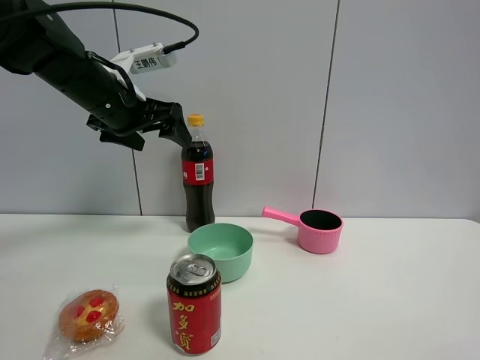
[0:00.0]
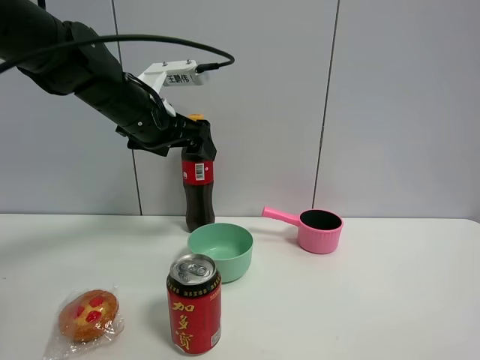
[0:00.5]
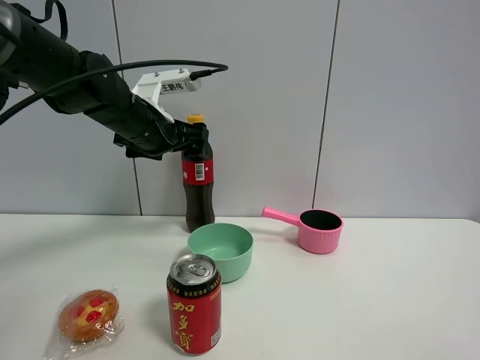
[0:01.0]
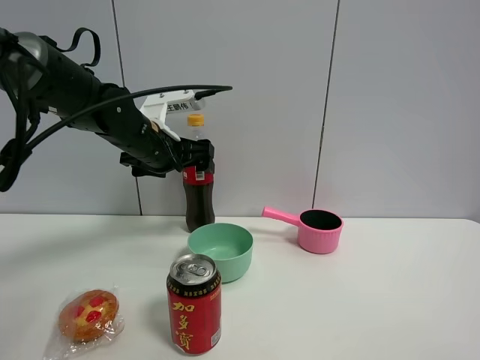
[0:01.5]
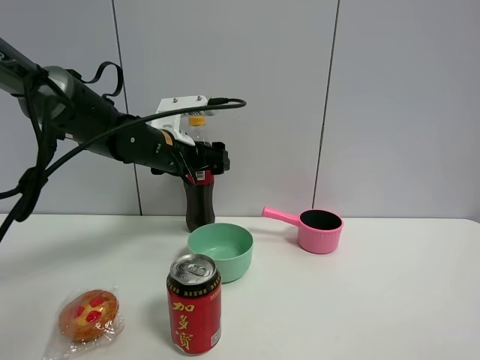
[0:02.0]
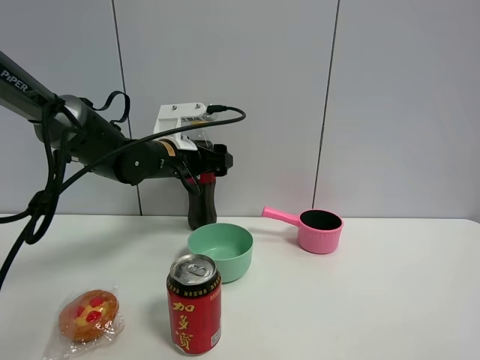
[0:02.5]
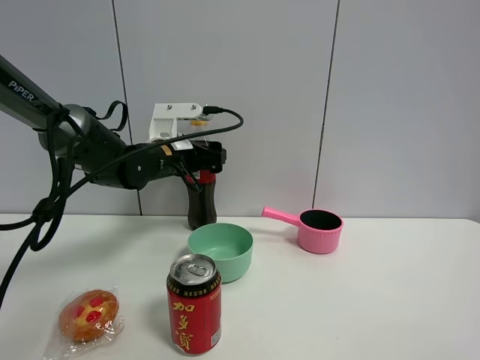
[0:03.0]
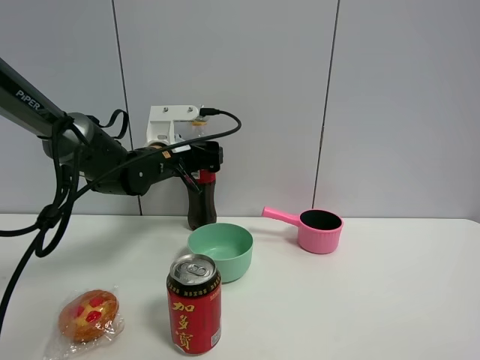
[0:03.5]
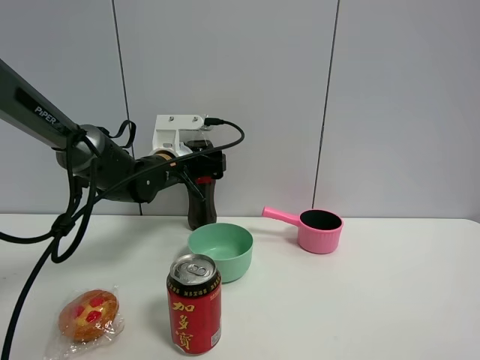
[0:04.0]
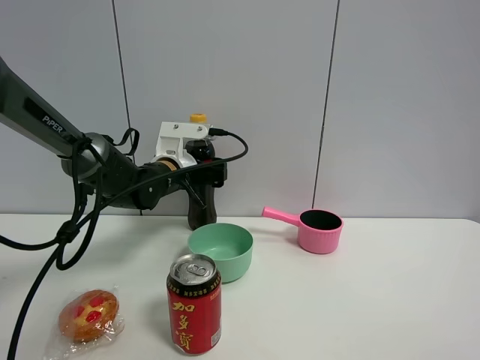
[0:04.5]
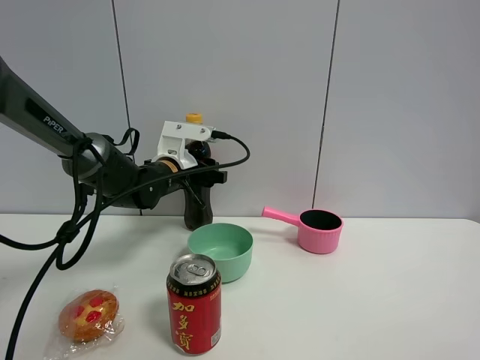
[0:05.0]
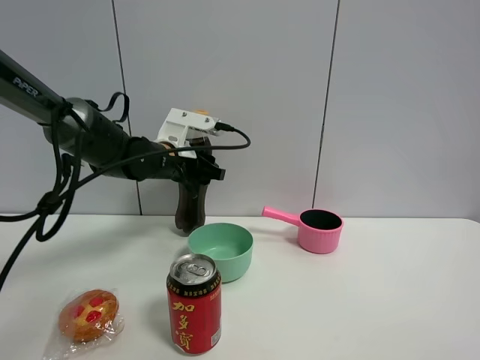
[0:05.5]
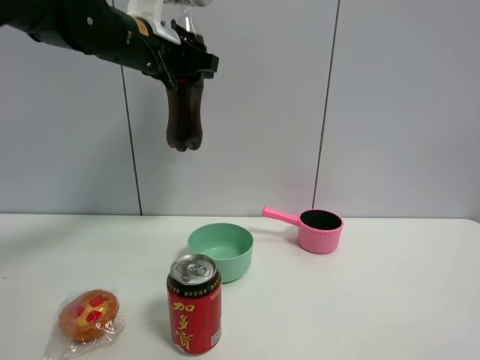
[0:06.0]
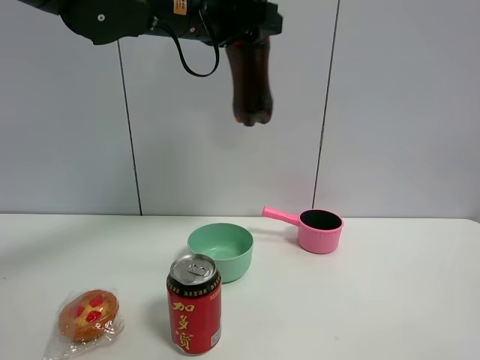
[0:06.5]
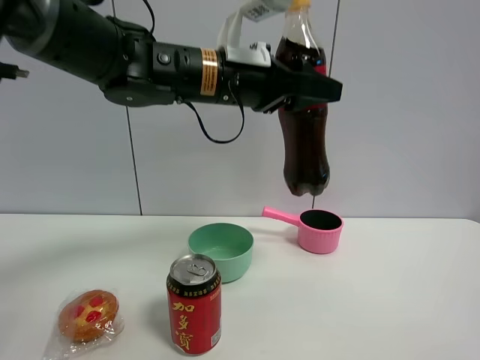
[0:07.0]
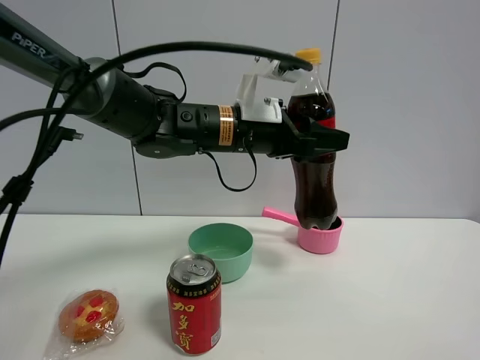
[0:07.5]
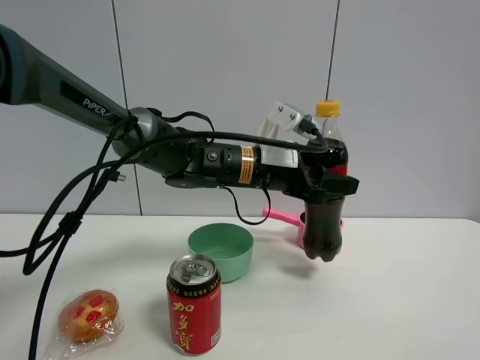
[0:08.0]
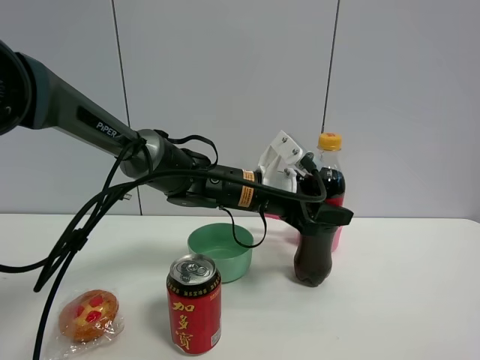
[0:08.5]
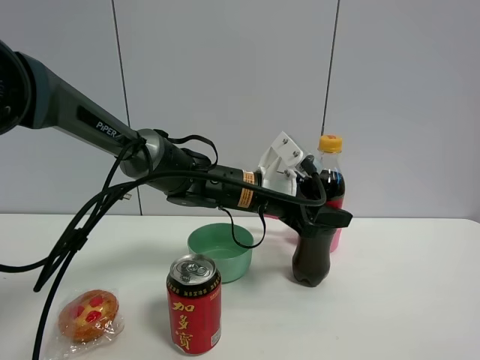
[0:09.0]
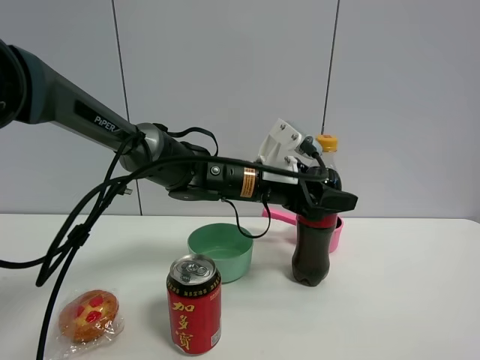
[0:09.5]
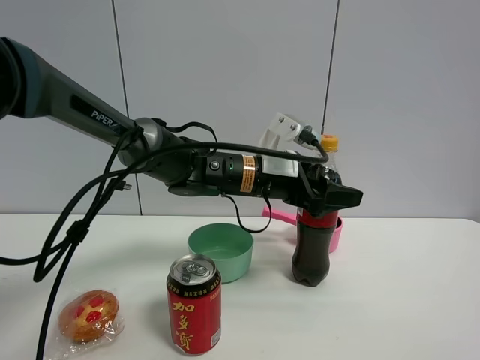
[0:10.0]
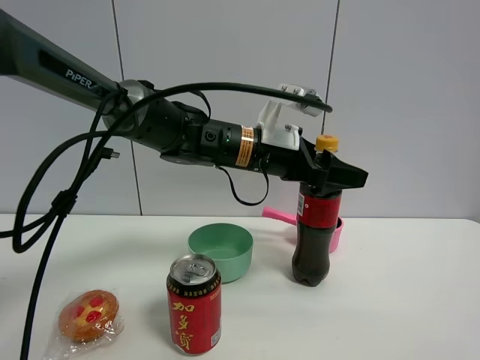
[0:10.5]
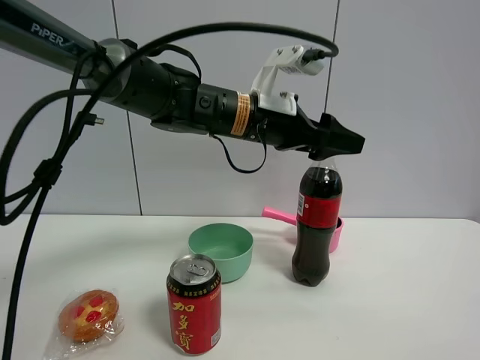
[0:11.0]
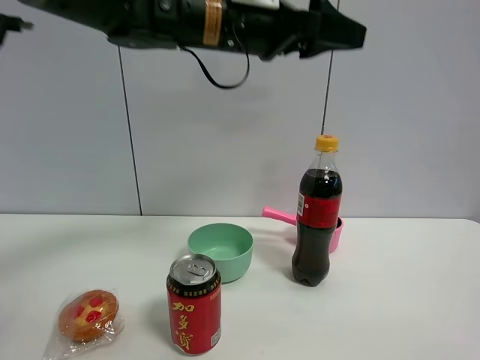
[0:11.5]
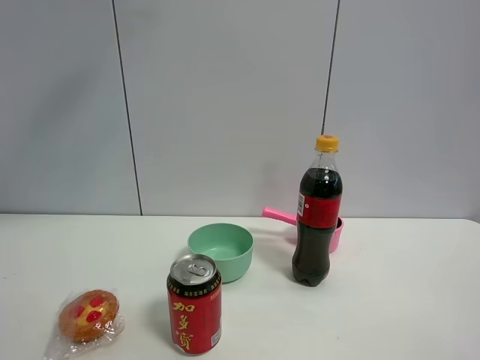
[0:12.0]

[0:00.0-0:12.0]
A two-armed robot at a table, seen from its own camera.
Task of the whole recording: the gripper move the object.
Step, 0:00.0 to 0:05.0: Grasp the coke with the left gripper.
Step, 0:05.5 to 0:10.0: Place the coke on the table with the left gripper.
0:00.0 to 0:02.0: The left gripper is displaced downward and to the right by about 10 cm.
0:02.0 to 0:04.0: The left gripper shifts by about 5 cm.
0:04.0 to 0:06.0: The left gripper travels upward by about 20 cm, and closes up.
0:06.0 to 0:08.0: The left gripper goes some 20 cm downward and to the right.
0:08.0 to 0:10.0: The left gripper opens its fingers.
0:10.0 to 0:12.0: The left gripper goes about 40 cm upward and to the left.

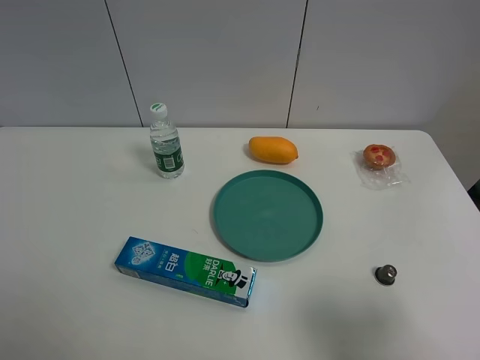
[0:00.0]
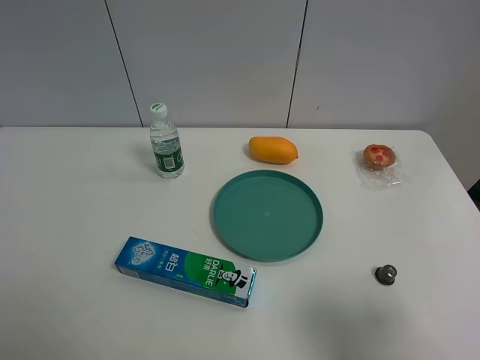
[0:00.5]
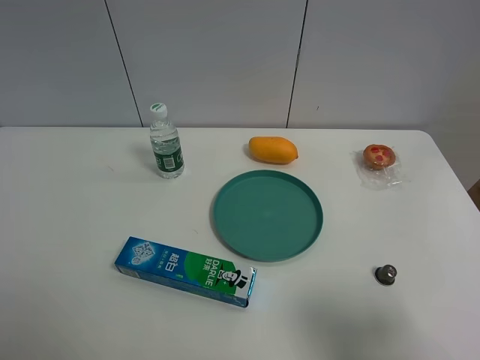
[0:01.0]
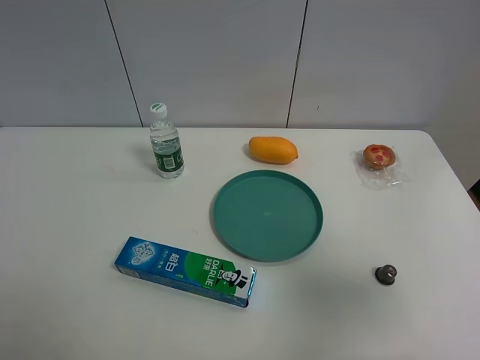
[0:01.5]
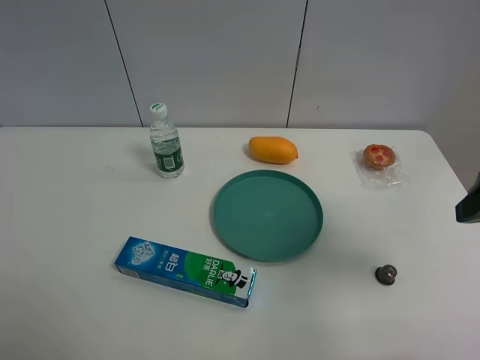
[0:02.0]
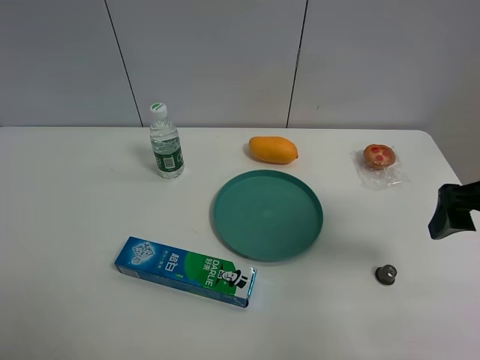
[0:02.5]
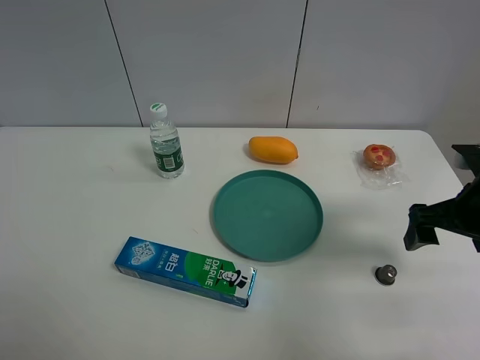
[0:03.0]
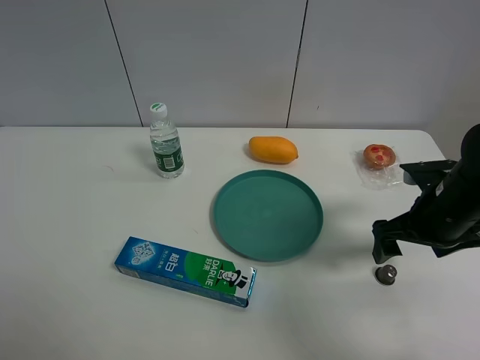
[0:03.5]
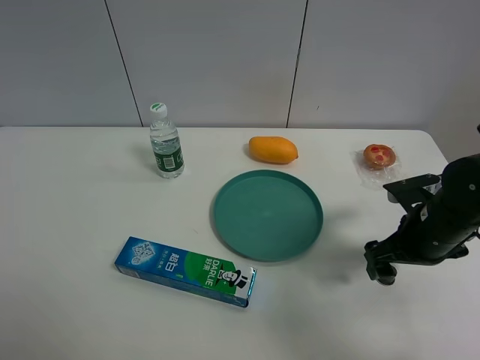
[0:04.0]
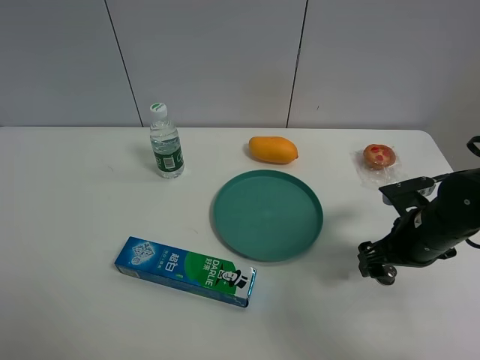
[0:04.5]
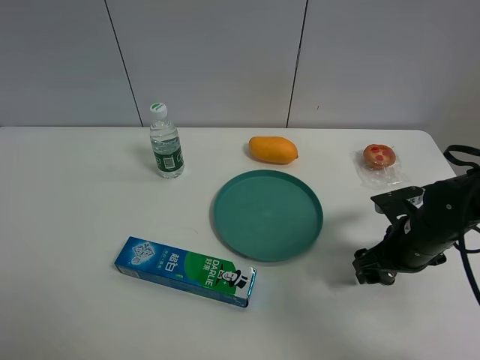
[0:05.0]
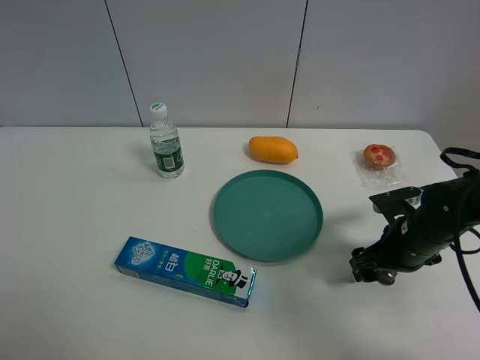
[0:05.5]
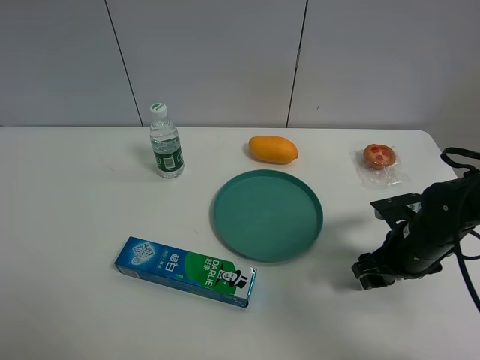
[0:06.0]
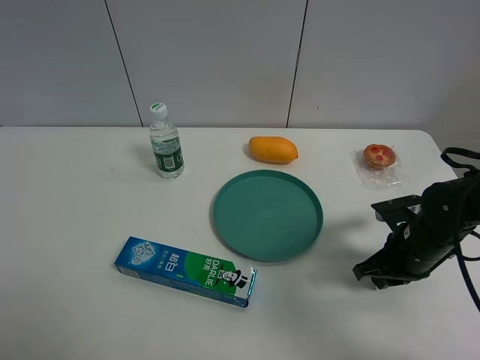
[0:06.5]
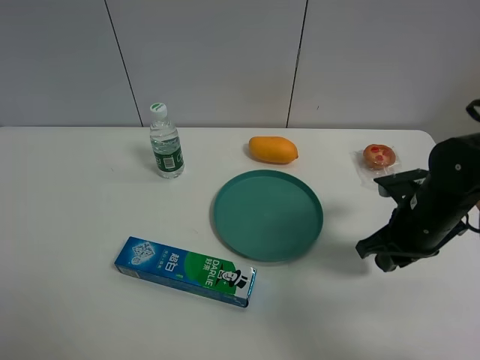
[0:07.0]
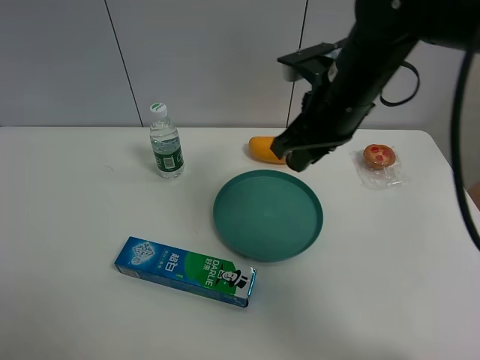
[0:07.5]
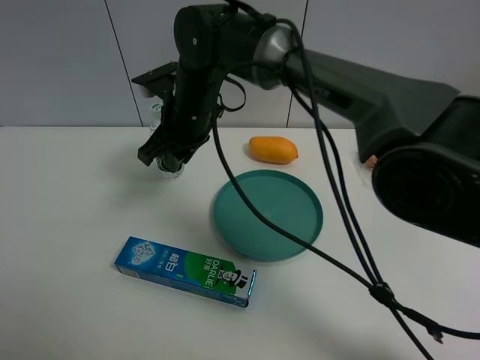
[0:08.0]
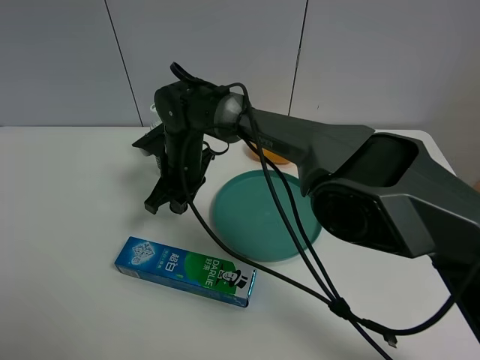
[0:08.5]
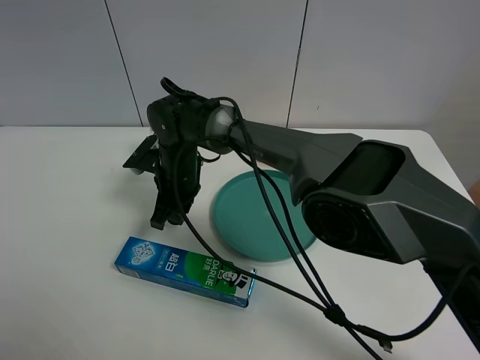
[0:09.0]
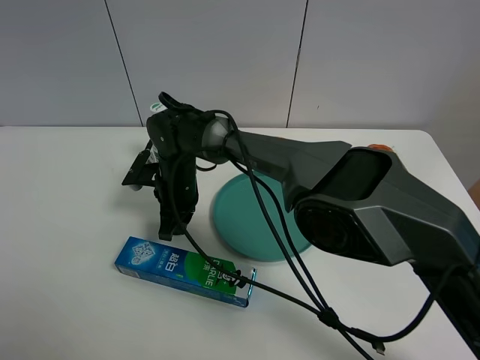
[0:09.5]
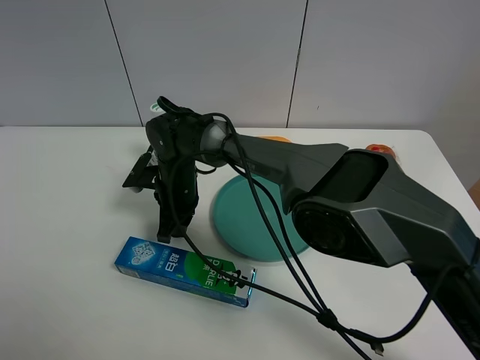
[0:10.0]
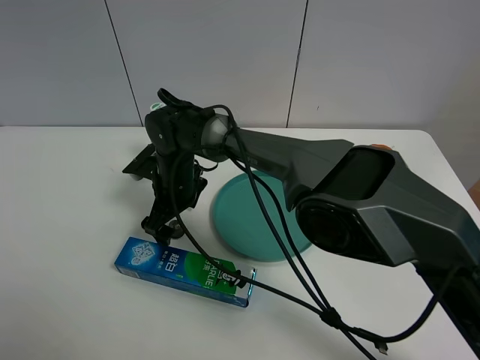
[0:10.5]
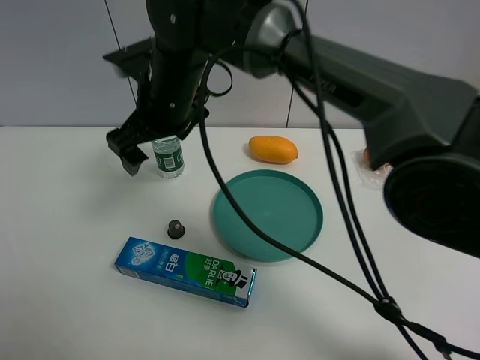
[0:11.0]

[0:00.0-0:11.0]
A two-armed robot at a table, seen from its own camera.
Task of the whole recording: the gripper move the object.
Step, 0:00.0 to 0:06.0: Grasp the coffee capsule with the right gripper.
Step, 0:06.5 to 0:10.5: Place the coffee capsule on the table with the right gripper.
0:00.0 to 0:02.0: The right gripper moves forward, approximately 15 cm.
0:02.0 to 0:03.5: The right gripper travels downward and forward by approximately 15 cm.
0:03.5 to 0:05.5: The right gripper heads downward, covering about 5 cm.
0:05.5 to 0:07.5: The right gripper is displaced upward and to the left by about 25 cm, and closes up.
0:07.5 to 0:09.0: The right gripper heads to the left and downward, covering roughly 25 cm.
0:09.0 to 0:11.0: The right gripper goes some 15 cm upward, and opens.

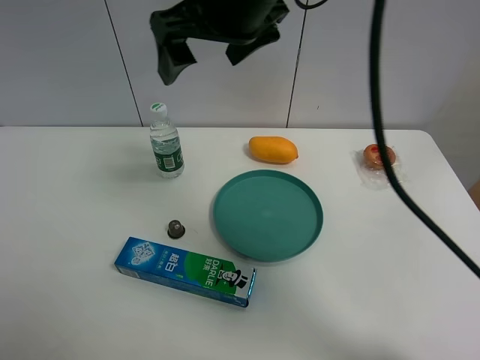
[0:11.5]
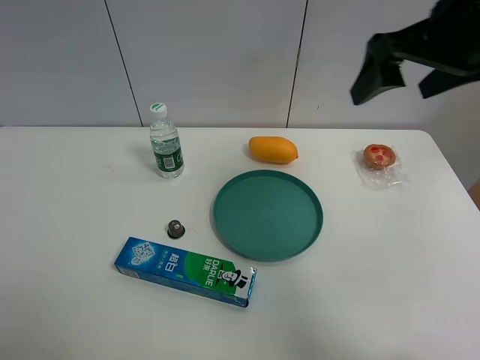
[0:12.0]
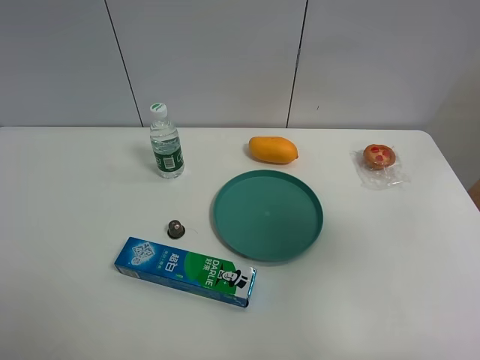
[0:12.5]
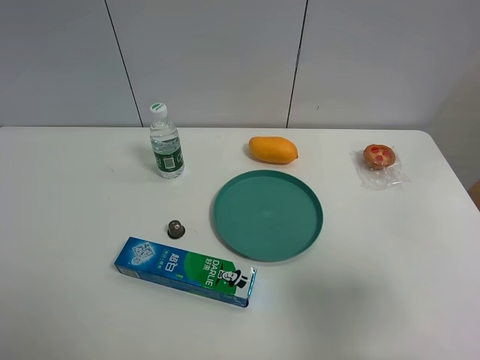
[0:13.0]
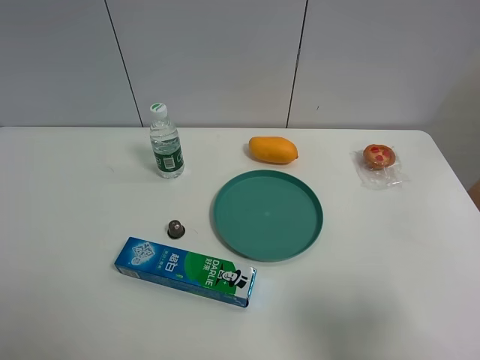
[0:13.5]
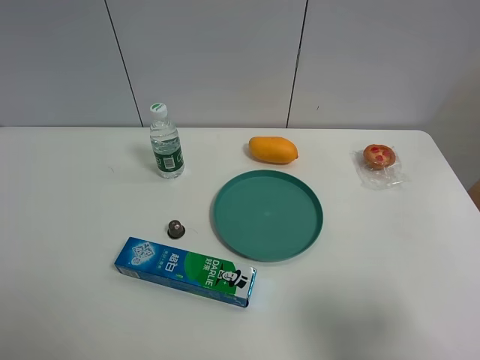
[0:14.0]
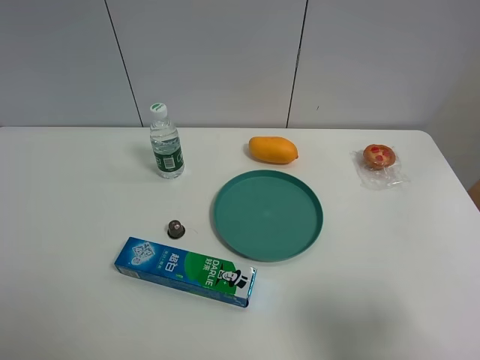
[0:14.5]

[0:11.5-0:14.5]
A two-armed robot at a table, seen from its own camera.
Task of the whole recording: the gripper move the object.
0:11.5 to 0:13.0: The right gripper heads to the right and backward, covering some 40 cm.
0:13.0 to 0:14.5: The right gripper changes place by approximately 5 cm.
